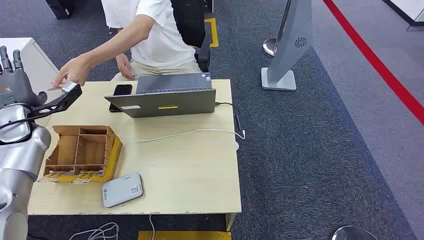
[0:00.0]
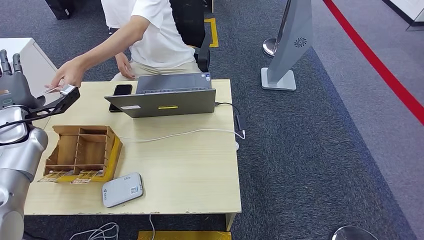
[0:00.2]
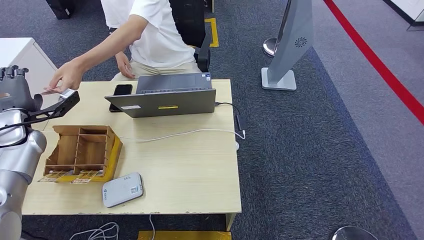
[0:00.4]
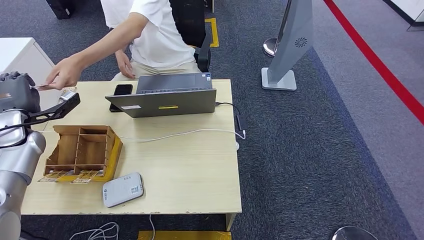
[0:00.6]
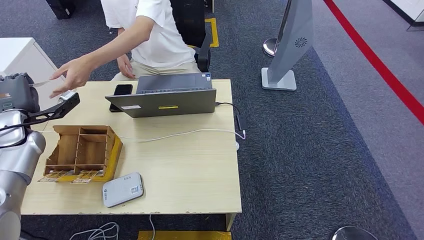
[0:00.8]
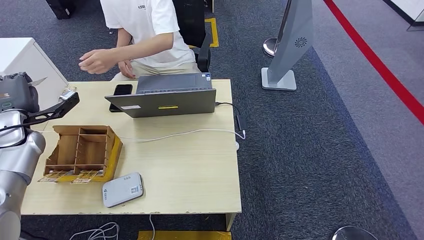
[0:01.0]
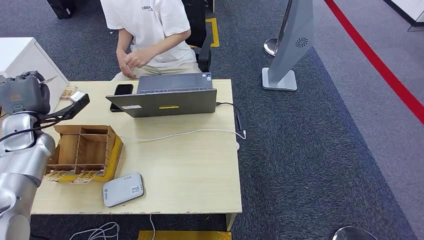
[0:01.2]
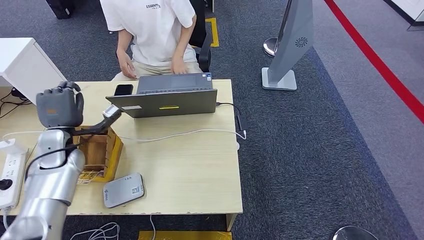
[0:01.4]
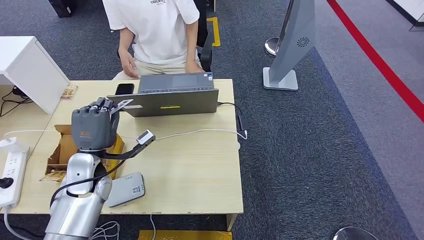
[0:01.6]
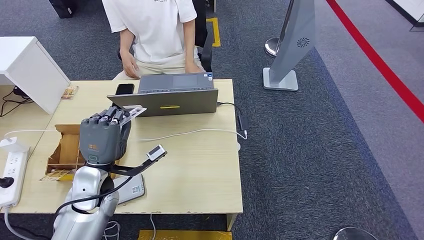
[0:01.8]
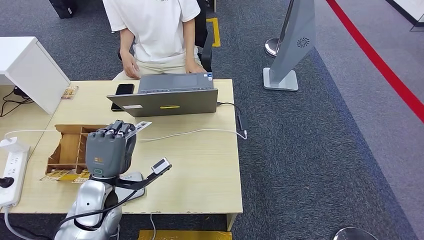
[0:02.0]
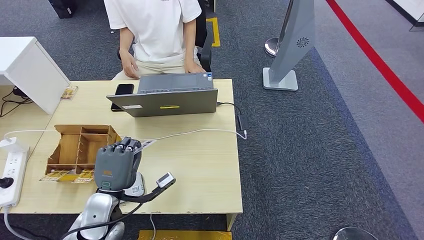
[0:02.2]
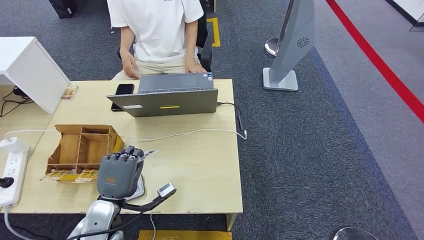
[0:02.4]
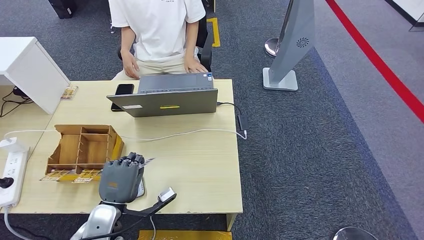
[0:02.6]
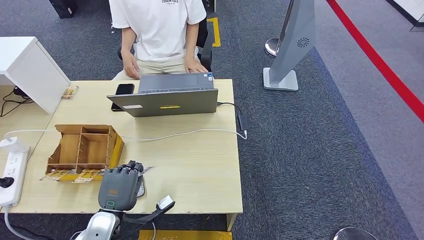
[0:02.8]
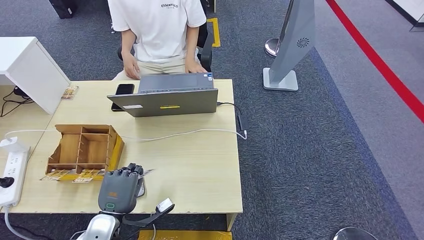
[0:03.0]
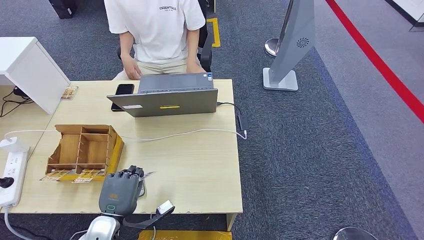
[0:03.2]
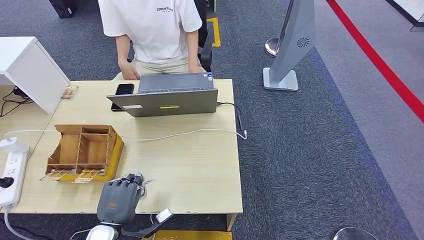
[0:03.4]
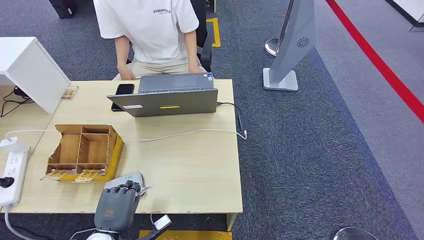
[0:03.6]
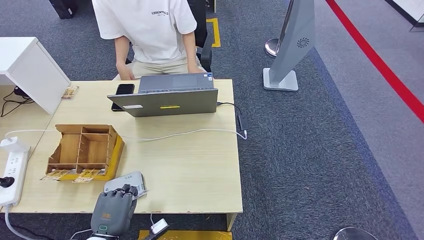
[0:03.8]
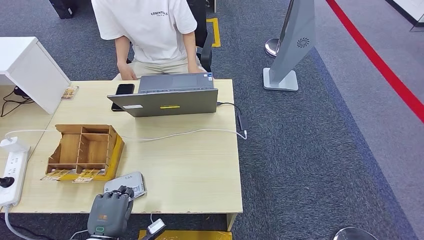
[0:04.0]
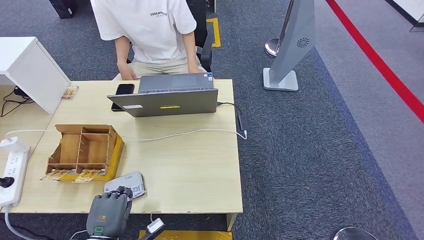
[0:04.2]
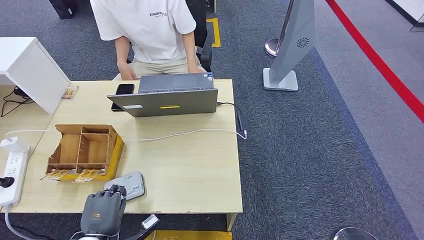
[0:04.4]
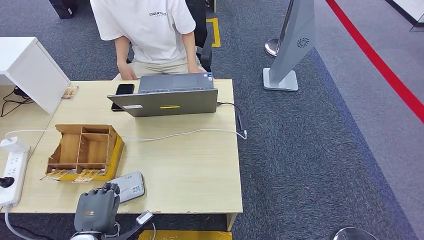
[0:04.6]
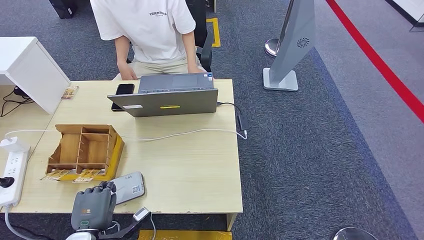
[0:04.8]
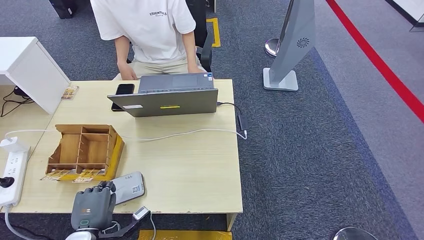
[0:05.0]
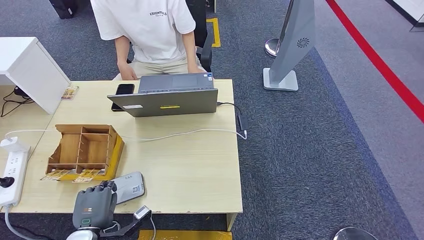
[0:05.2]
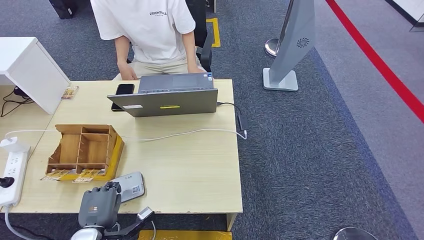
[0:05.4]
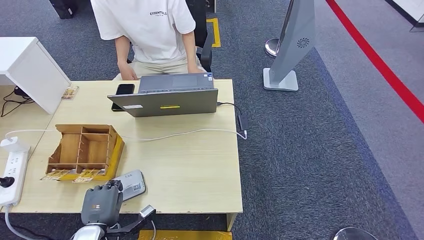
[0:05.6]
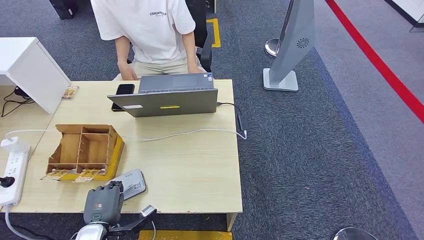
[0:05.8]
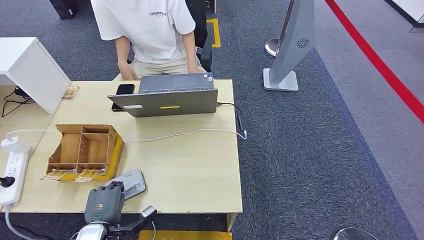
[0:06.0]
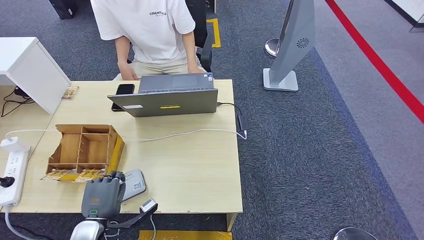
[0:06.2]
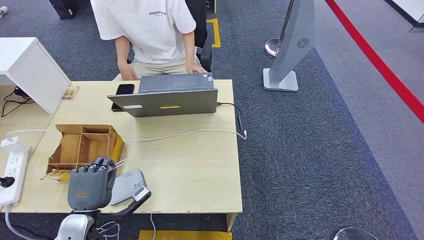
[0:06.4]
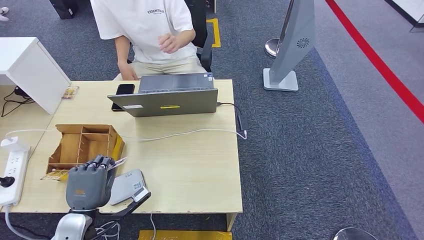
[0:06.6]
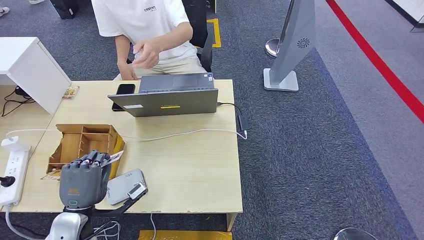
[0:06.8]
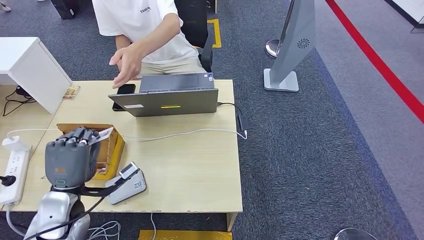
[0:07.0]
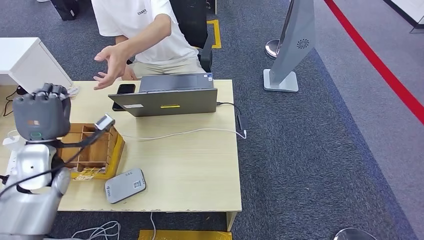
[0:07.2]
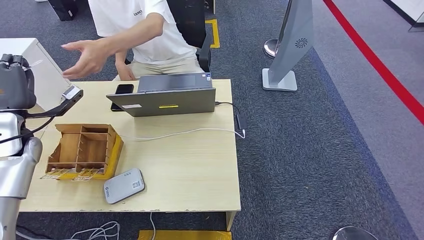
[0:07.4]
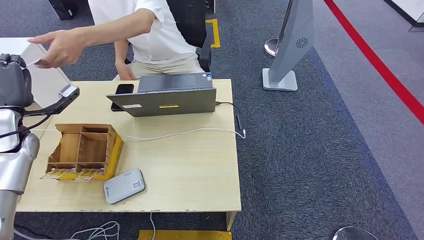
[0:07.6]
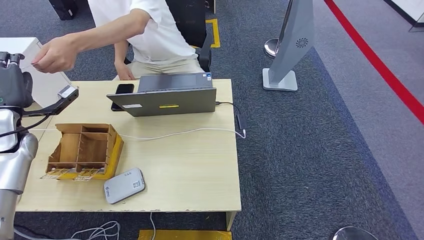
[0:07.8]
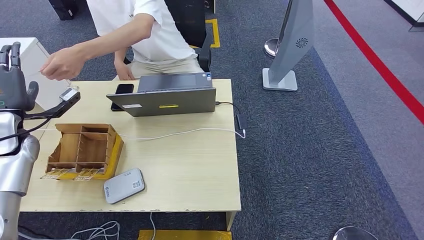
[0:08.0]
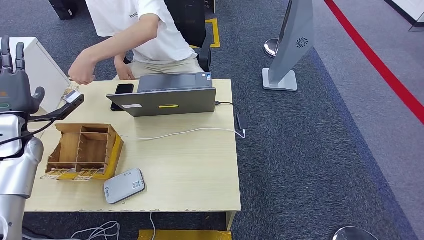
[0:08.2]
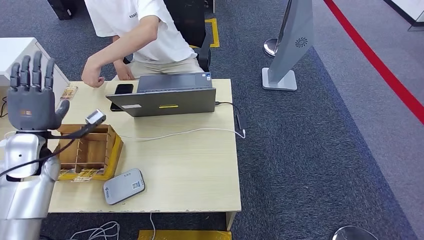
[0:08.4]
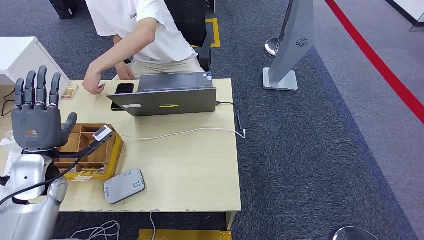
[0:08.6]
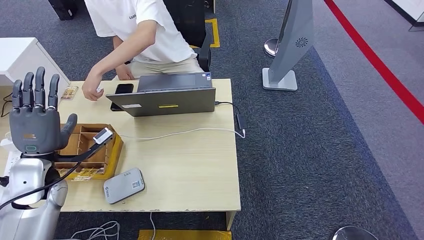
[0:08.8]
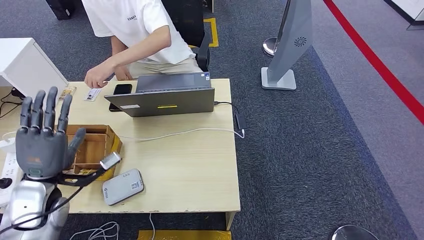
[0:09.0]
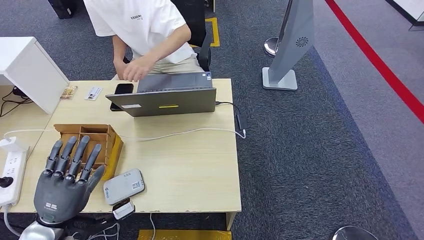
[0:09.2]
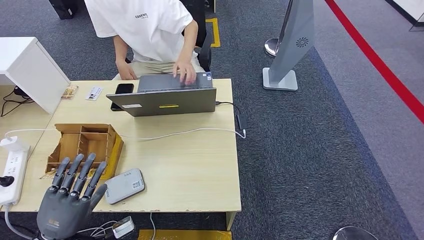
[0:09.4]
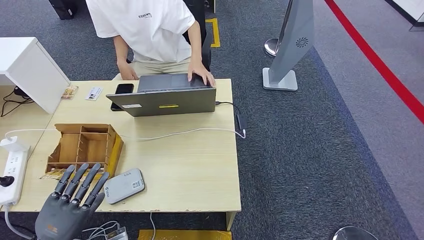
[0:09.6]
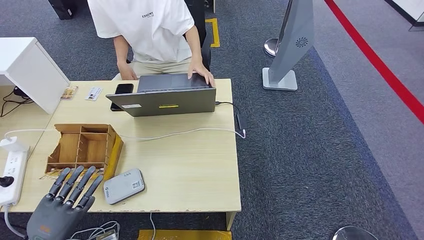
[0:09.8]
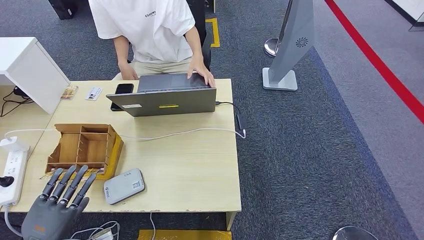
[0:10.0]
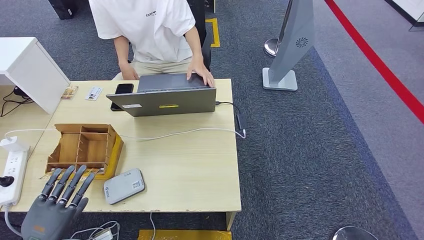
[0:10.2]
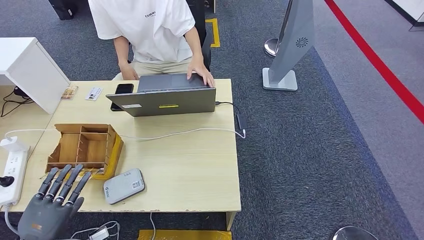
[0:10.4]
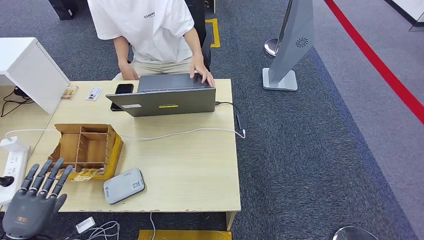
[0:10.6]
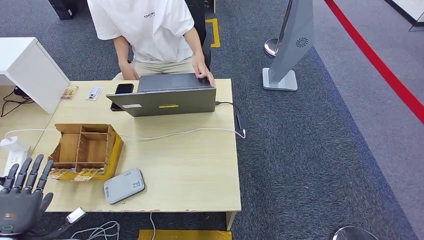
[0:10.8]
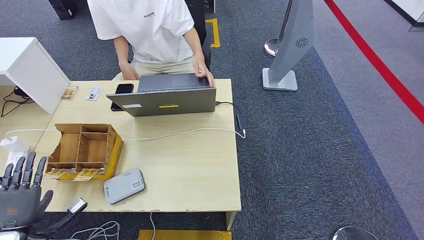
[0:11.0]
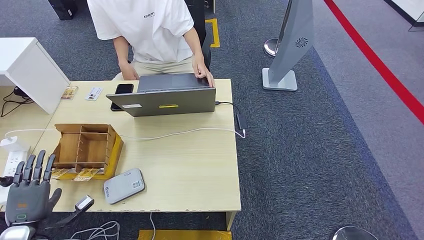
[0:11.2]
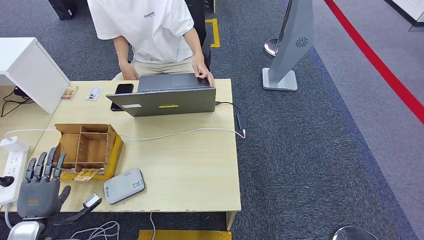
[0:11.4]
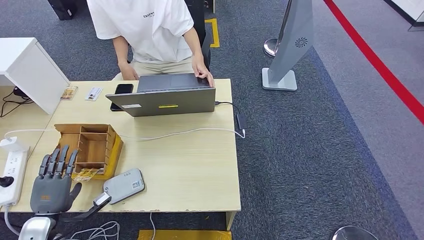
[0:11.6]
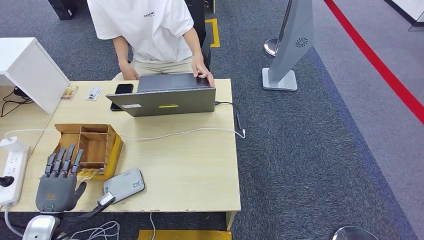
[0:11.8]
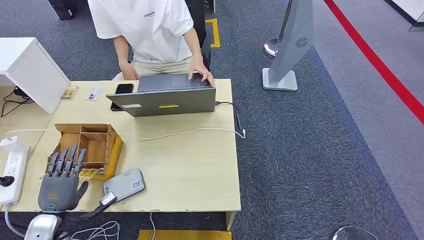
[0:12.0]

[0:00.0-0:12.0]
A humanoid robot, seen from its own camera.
Step, 0.0 to 1.4 s: Take the ID card from the person's hand.
Step, 1.8 to 6.2 s: Place the ID card on the card reader.
Step, 6.6 to 8.8 s: Hand the ID card to the person.
1.6 to 3.0 s: The left hand moves backward and downward, roughly 15 cm.
3.0 to 4.4 s: The left hand shifts by roughly 5 cm.
4.4 to 6.0 s: The hands make only small movements.
6.0 to 7.6 s: The left hand is displaced forward, upward and to the left by about 35 cm.
9.0 to 10.4 s: The left hand travels backward, downward and to the left by about 15 cm.
10.4 to 12.0 s: The left hand goes roughly 10 cm forward and downward.

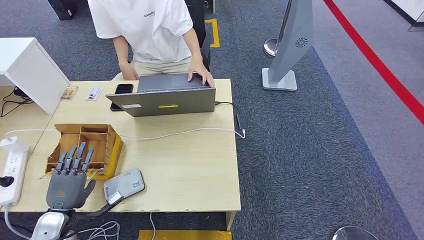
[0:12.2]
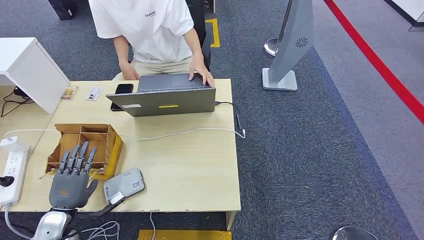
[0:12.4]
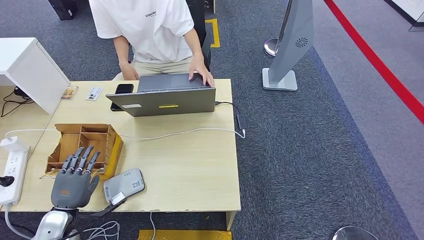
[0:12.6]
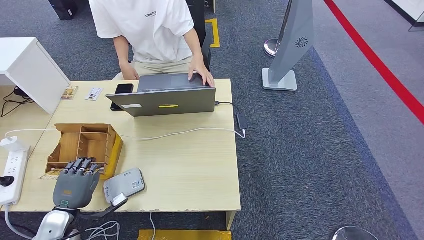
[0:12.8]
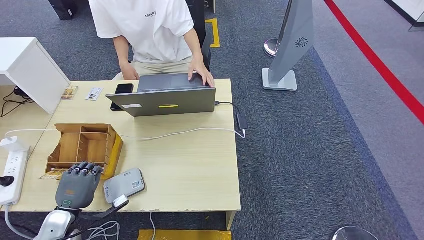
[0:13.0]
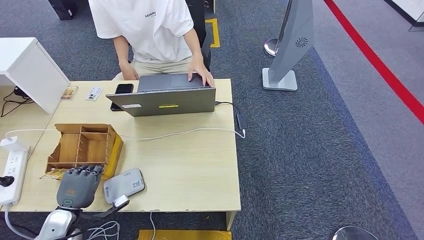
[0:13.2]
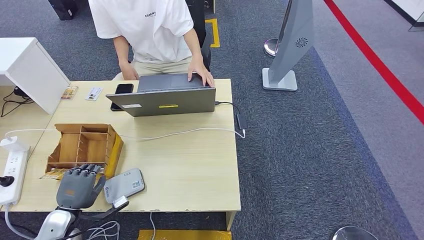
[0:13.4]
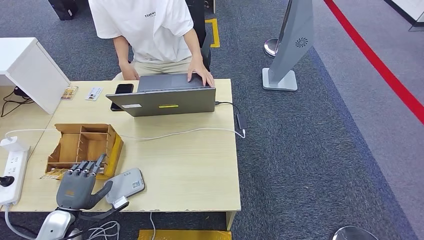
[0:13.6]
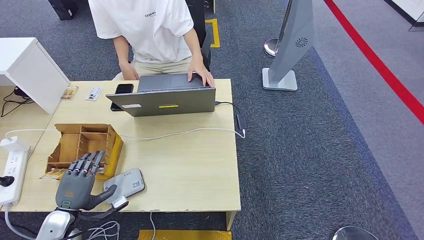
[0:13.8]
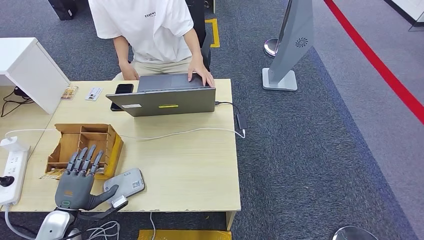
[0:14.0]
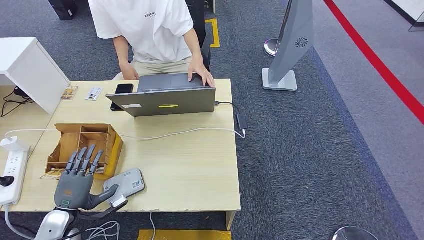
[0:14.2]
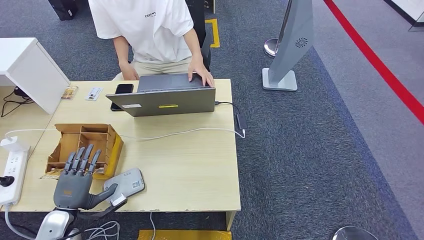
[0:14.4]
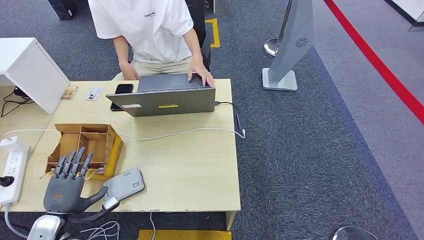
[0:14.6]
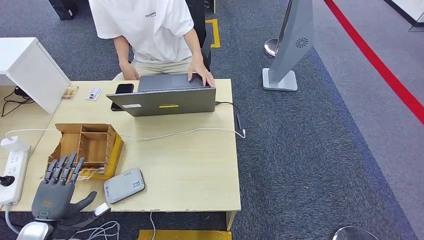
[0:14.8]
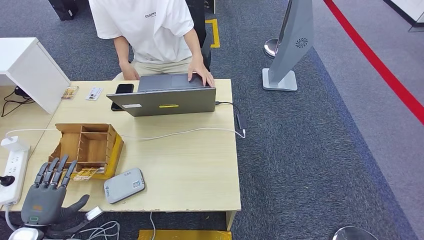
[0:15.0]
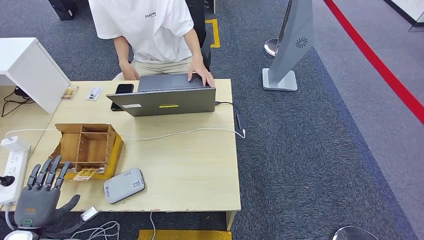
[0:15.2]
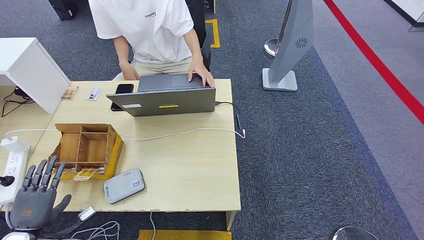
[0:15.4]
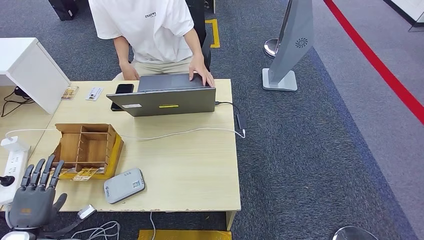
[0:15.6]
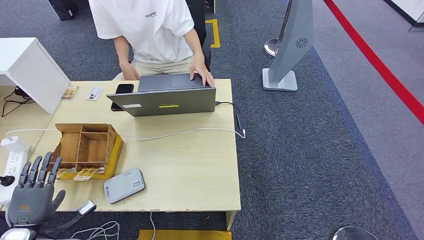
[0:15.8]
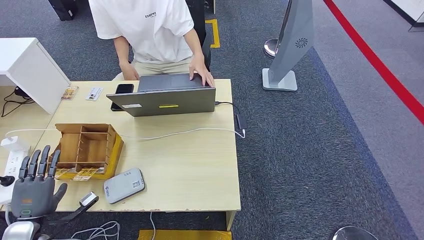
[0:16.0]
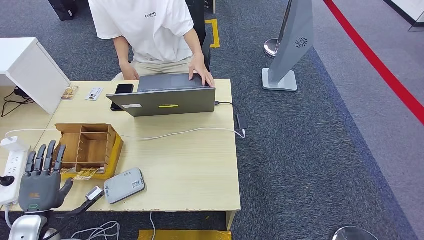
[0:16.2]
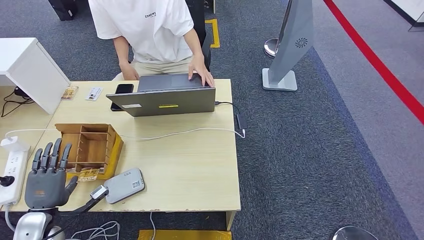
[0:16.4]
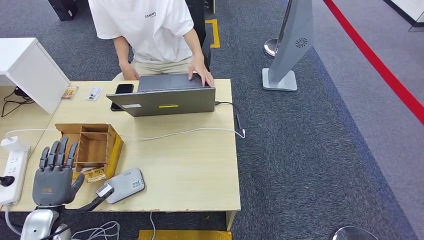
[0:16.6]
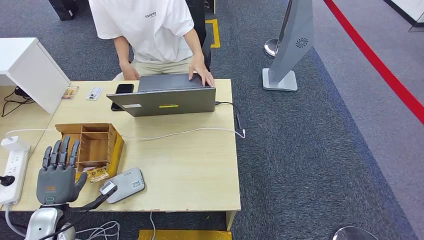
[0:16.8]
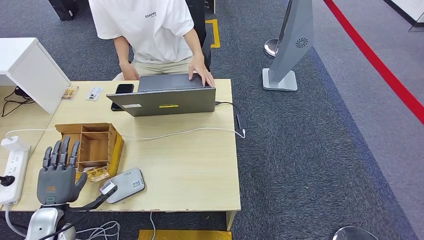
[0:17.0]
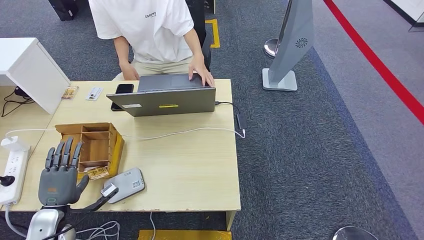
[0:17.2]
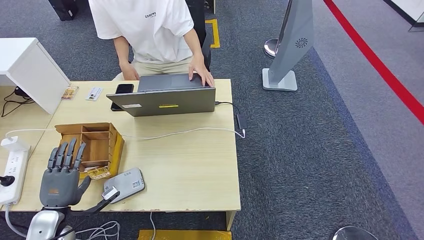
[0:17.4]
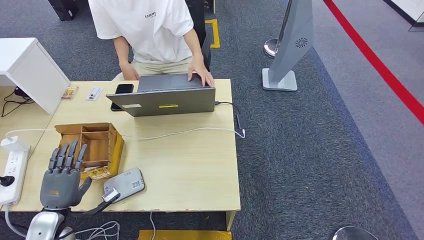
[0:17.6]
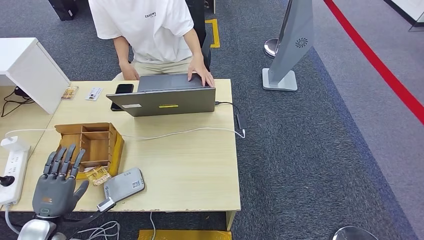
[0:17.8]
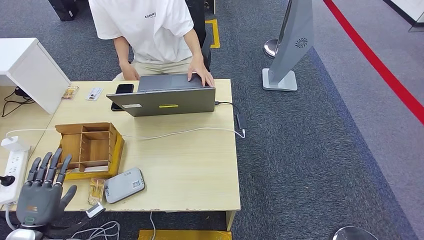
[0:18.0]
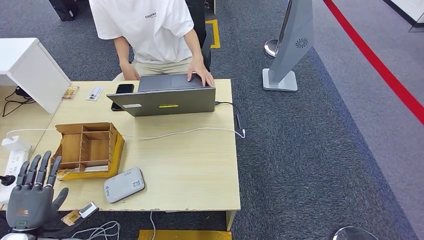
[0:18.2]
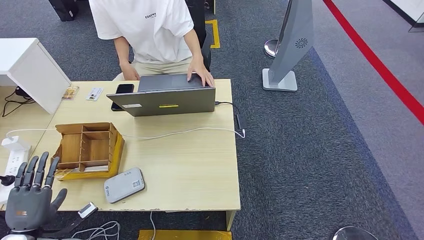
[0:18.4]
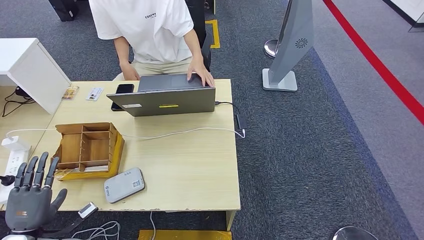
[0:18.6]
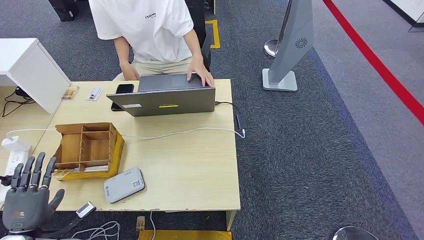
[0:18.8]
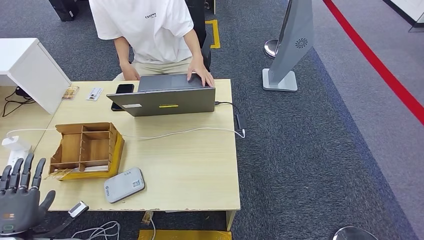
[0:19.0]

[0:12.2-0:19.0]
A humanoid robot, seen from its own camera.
12.2 to 13.6 s: The hands make only small movements.
13.6 to 15.0 s: The left hand travels to the left by about 5 cm.
15.0 to 16.2 s: There are only small adjustments of the hands.
16.2 to 17.6 s: The hands move only a little.
17.6 to 19.0 s: The left hand travels to the left and backward by roughly 10 cm.
